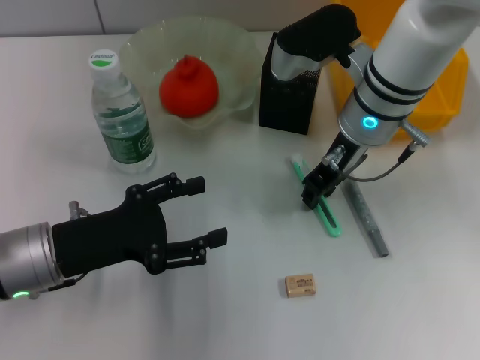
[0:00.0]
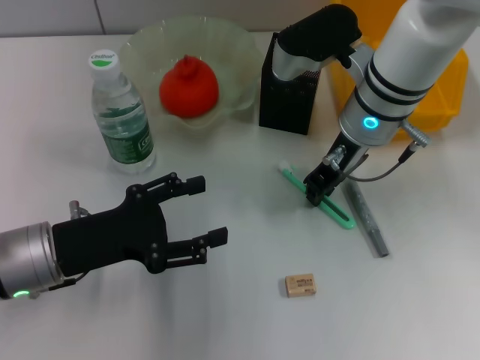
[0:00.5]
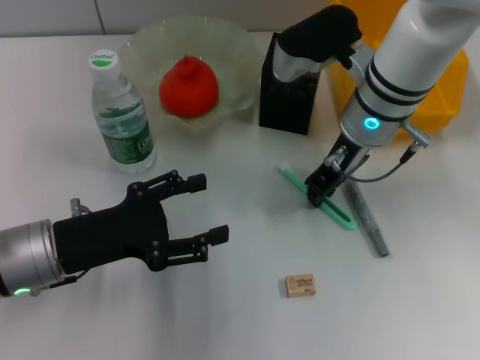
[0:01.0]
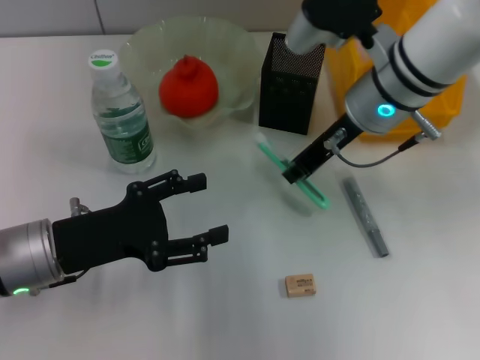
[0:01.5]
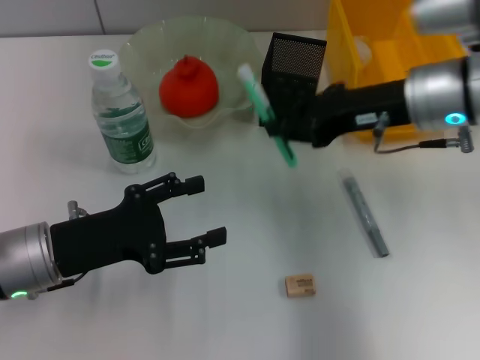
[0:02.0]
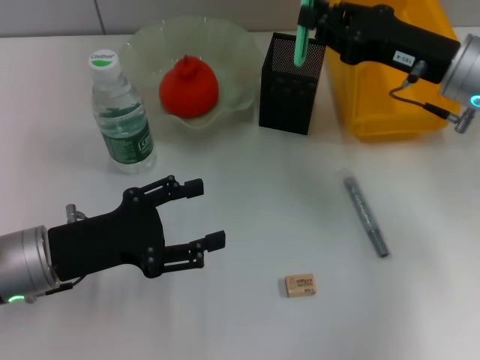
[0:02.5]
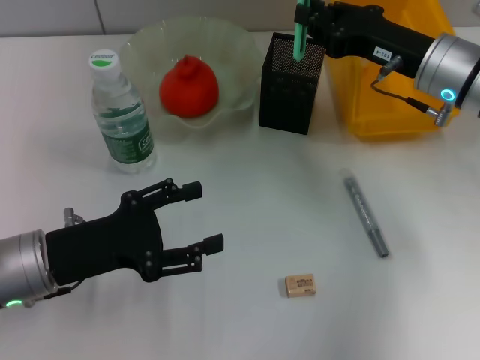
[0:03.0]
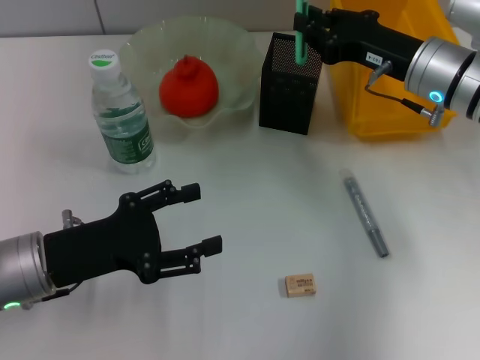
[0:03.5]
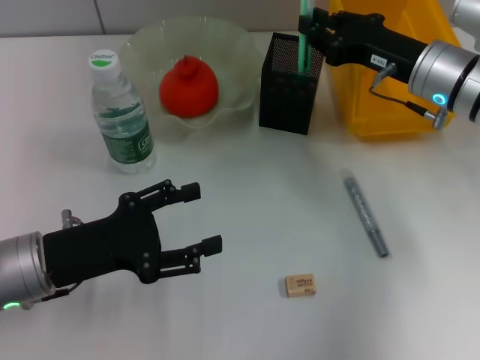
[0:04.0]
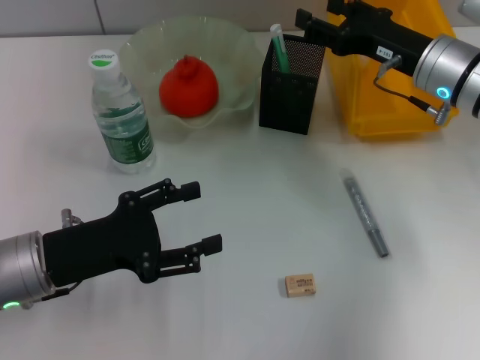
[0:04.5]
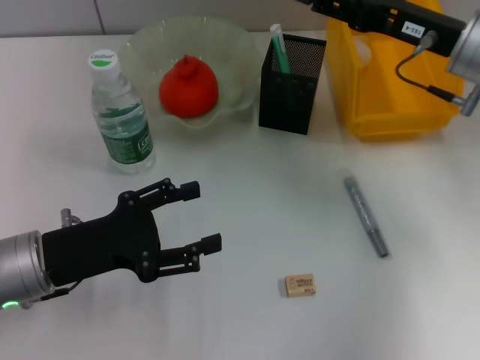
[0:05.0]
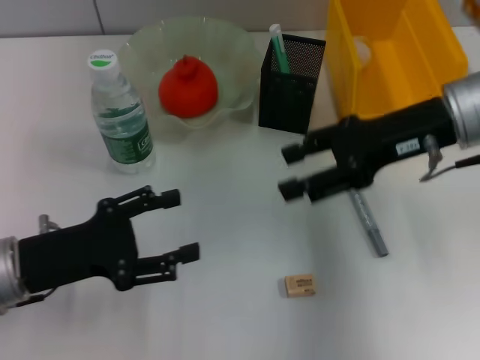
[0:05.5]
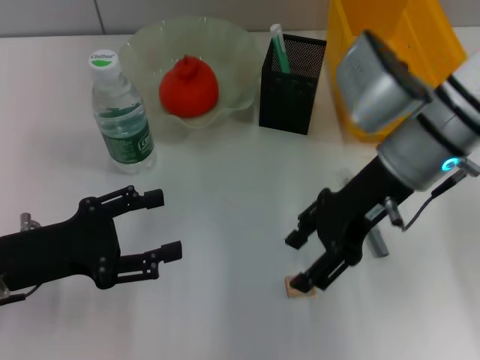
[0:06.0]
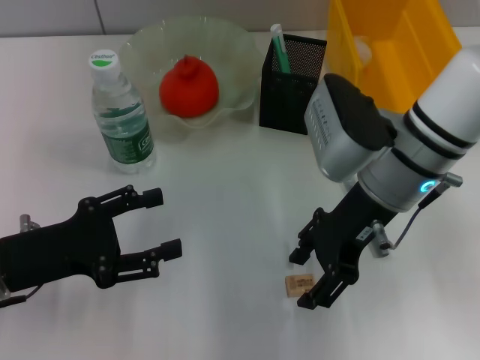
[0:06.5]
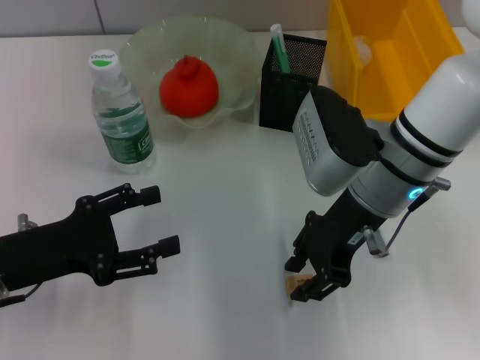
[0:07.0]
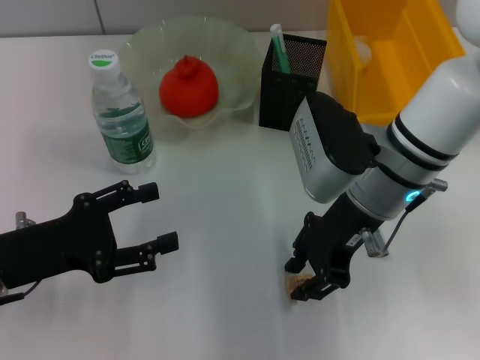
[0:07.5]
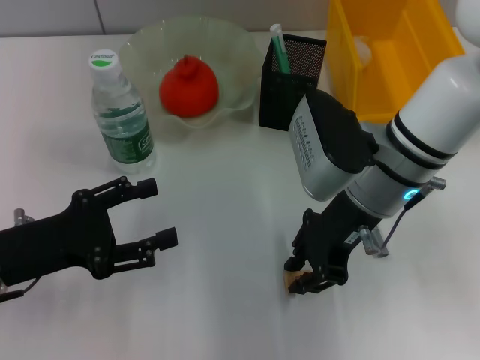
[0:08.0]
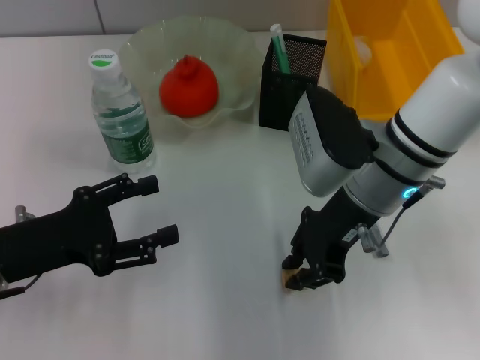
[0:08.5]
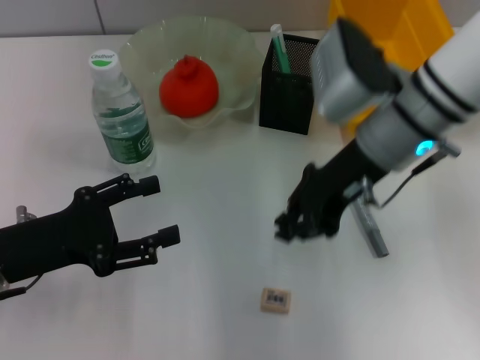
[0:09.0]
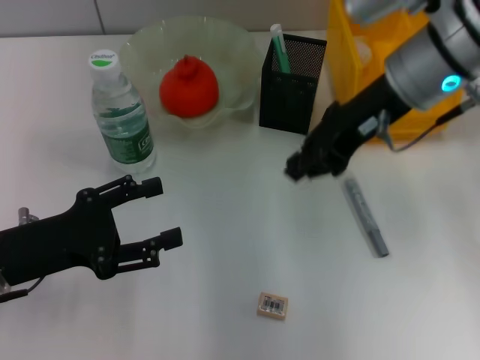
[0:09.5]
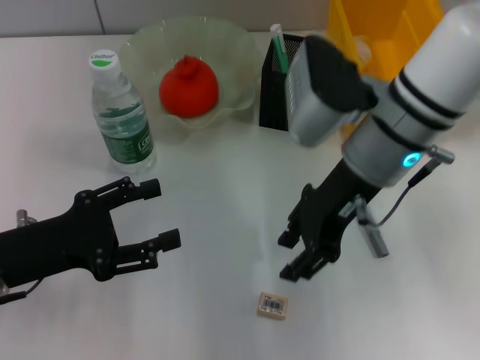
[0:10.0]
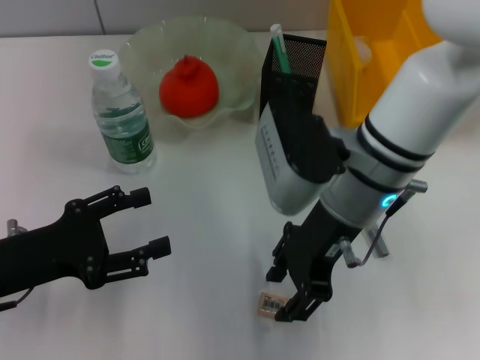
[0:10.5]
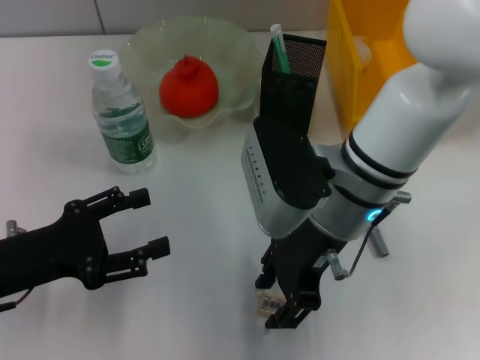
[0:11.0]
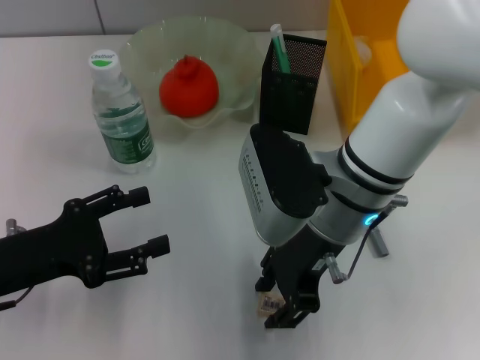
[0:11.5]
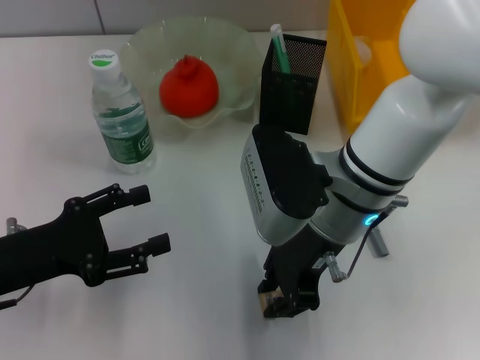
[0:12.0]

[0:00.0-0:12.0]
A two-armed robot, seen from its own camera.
Step, 0:01.0 to 0:04.0: Place the blue utility knife into the pen holder with the right hand.
0:00.0 to 0:02.0: The right gripper is displaced to the right by about 10 cm.
0:02.0 to 0:04.0: The right gripper goes roughly 5 cm downward.
0:04.0 to 0:06.0: The right gripper is displaced to the left and backward by about 10 cm, and opens.
0:06.0 to 0:08.0: The right gripper closes its fingers.
0:10.0 to 0:12.0: The right gripper moves some 5 cm, and opens and closes again.

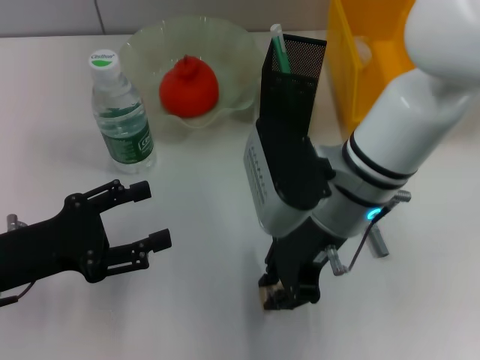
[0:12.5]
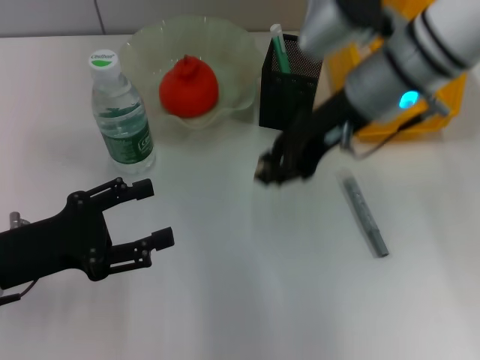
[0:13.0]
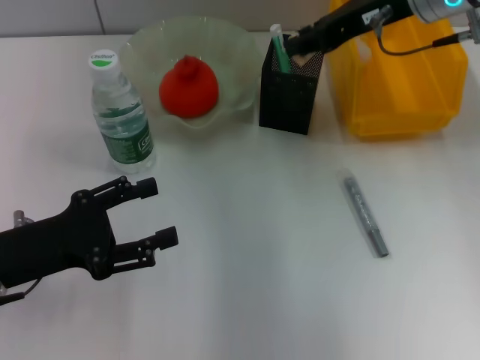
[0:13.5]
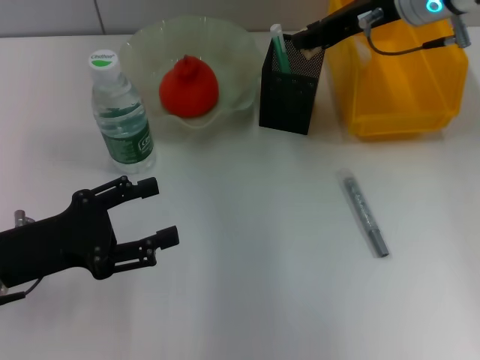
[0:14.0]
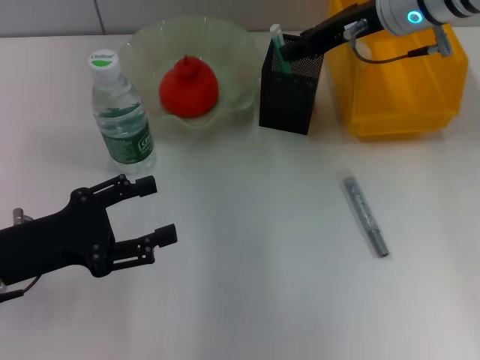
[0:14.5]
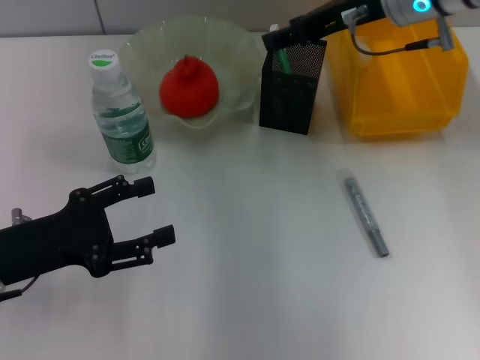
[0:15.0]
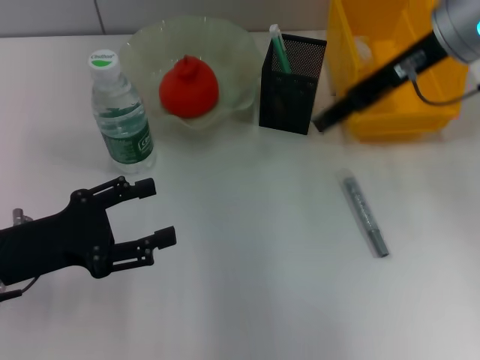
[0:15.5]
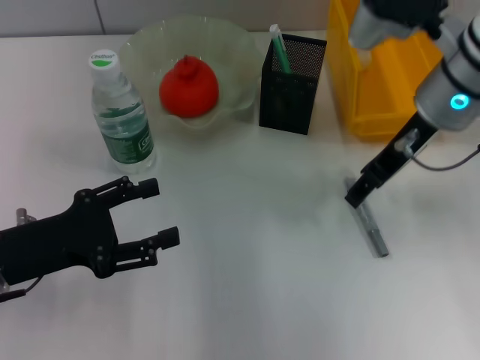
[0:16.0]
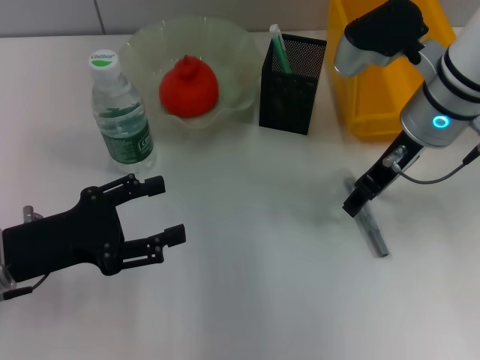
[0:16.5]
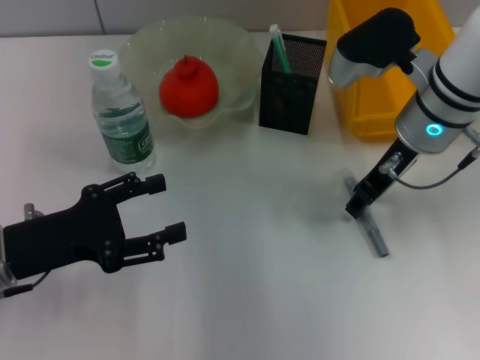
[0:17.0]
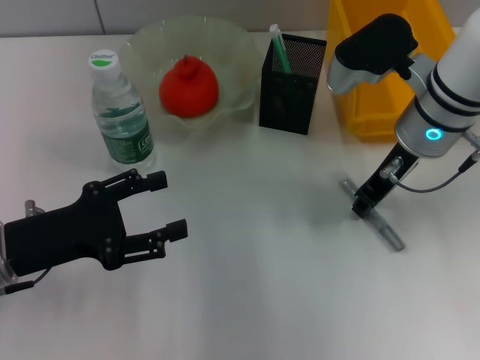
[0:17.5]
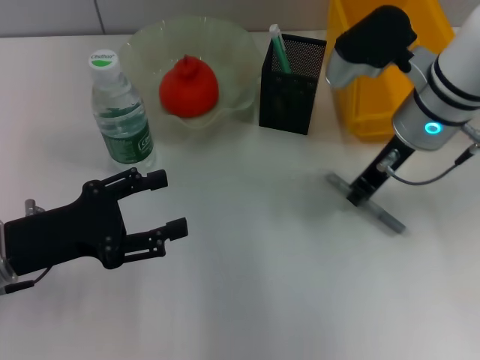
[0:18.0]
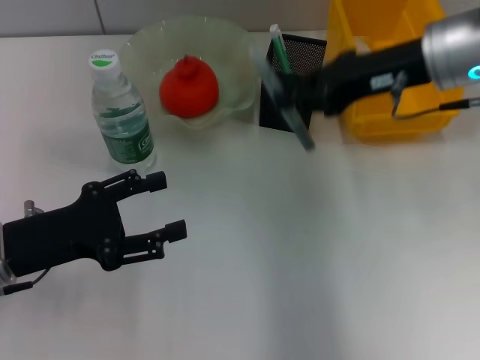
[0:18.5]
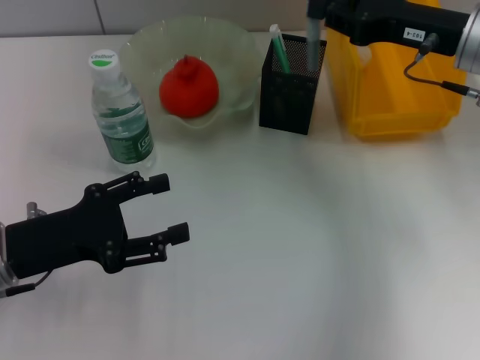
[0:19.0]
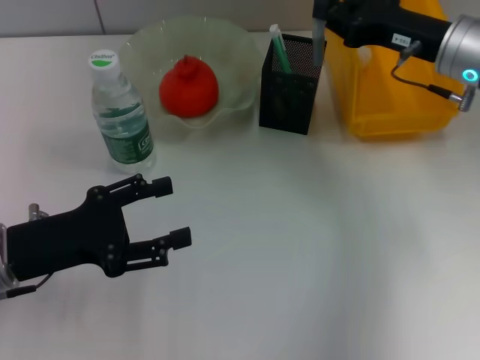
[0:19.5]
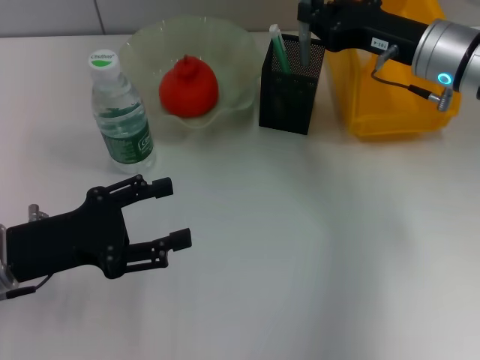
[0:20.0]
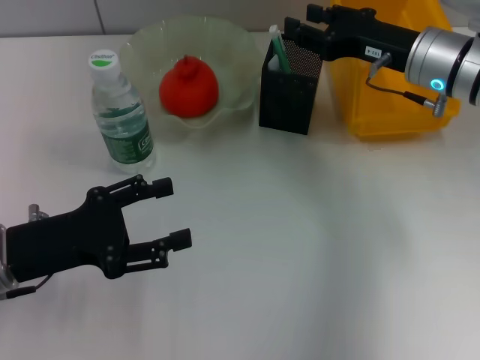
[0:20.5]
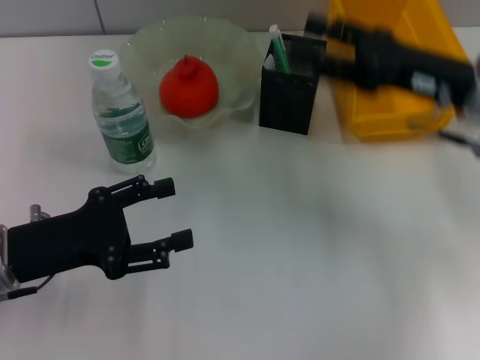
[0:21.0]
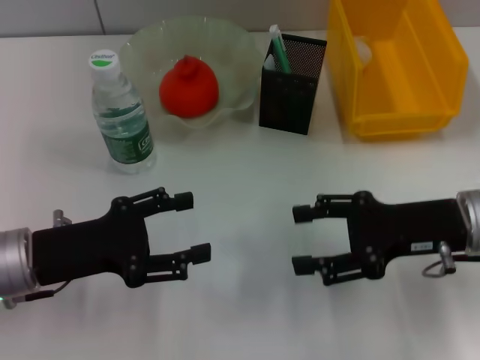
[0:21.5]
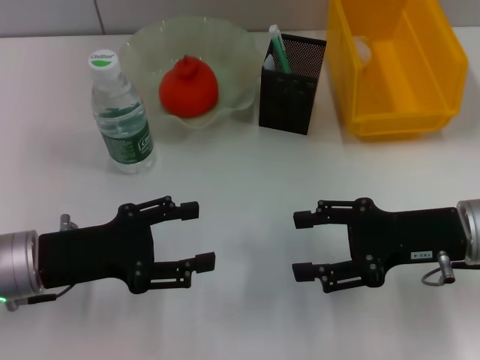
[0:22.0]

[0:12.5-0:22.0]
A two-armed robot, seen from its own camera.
Step, 0:12.5 to 0:14.5: Put the eraser into the pen holder with the right hand.
Step, 0:15.0 to 0:17.5: Grab the gray glue with the right hand.
Step, 0:18.0 to 0:20.5: Place the gray glue into the pen holder with the right hand.
0:12.5 to 0:14.5: The right gripper travels forward, to the right and upward by some 15 cm.
0:14.5 to 0:16.5: The right gripper heads backward, covering about 5 cm.
0:16.5 to 0:18.0: The right gripper closes its fingers.
0:18.0 to 0:20.0: The right gripper ends up some 5 cm from where it was.
0:20.0 to 0:22.0: The right gripper is displaced backward by roughly 15 cm, and opens.
